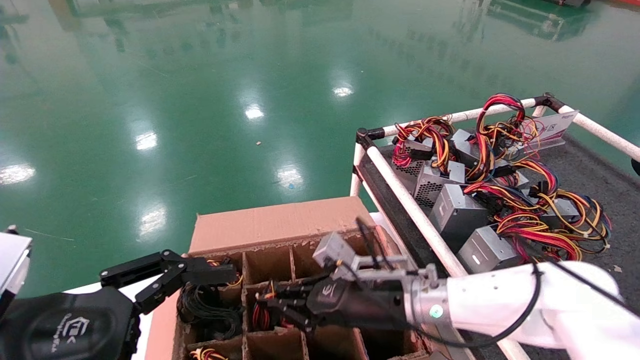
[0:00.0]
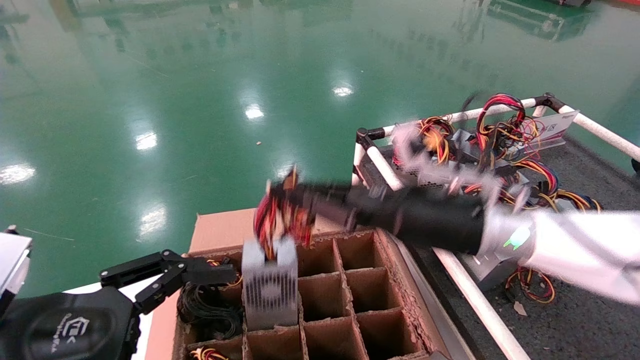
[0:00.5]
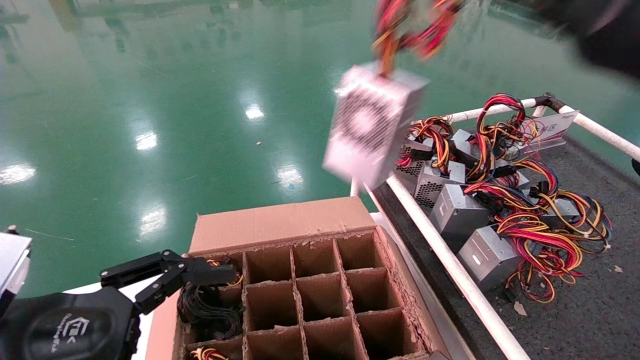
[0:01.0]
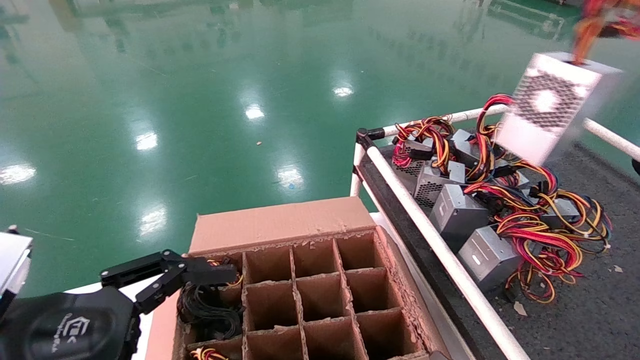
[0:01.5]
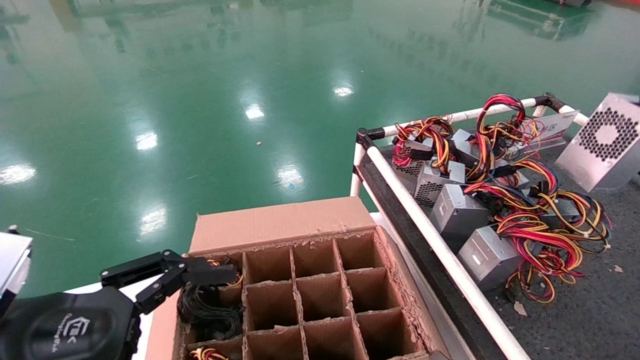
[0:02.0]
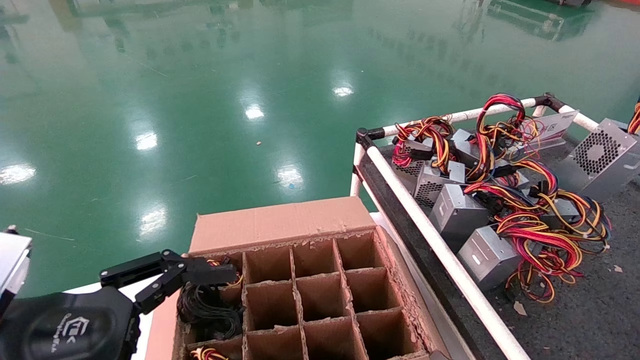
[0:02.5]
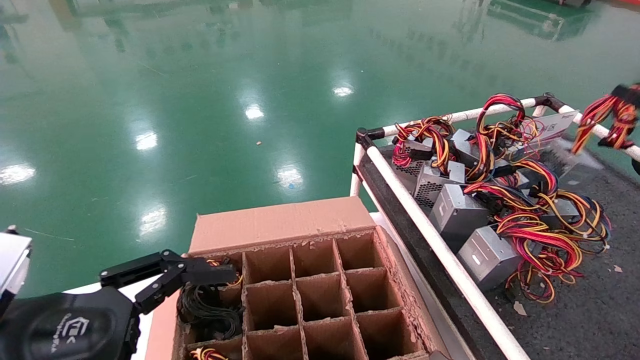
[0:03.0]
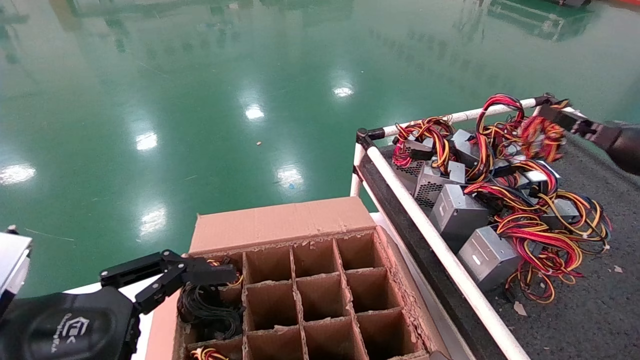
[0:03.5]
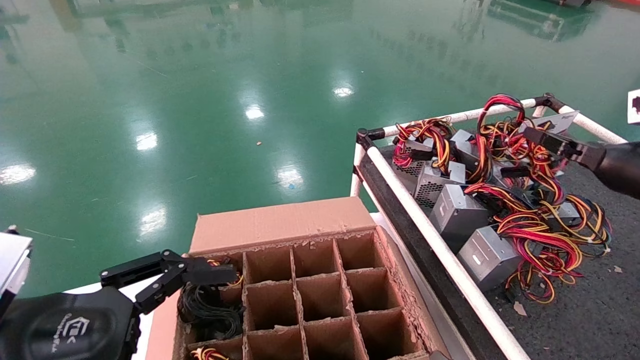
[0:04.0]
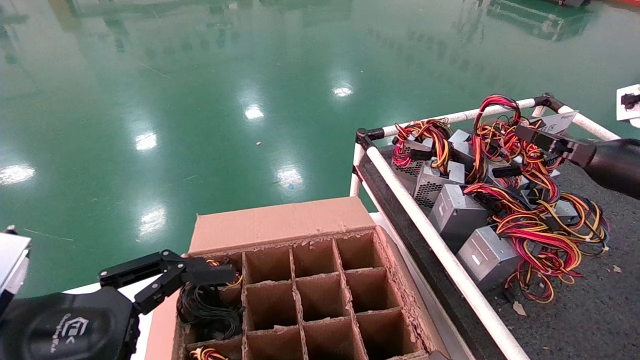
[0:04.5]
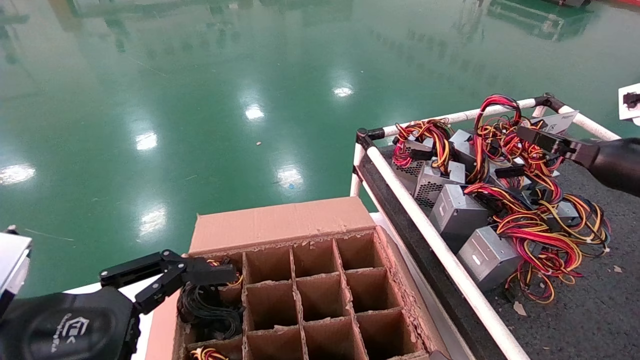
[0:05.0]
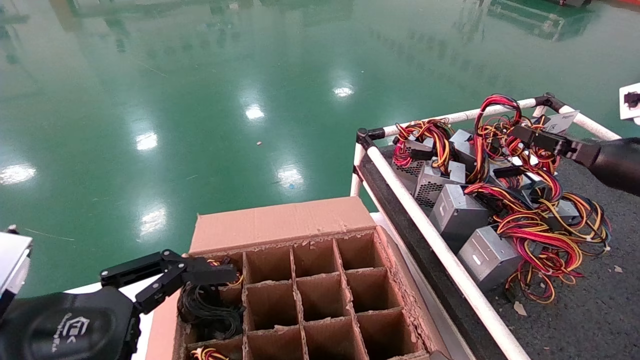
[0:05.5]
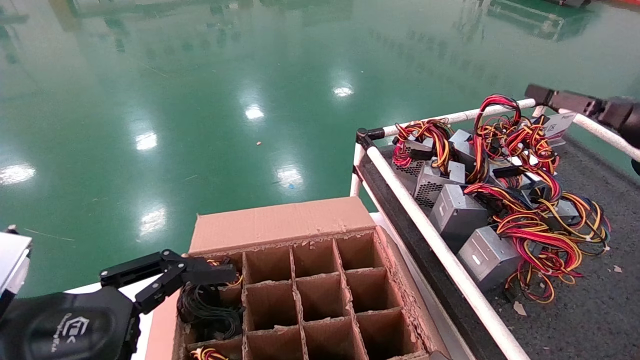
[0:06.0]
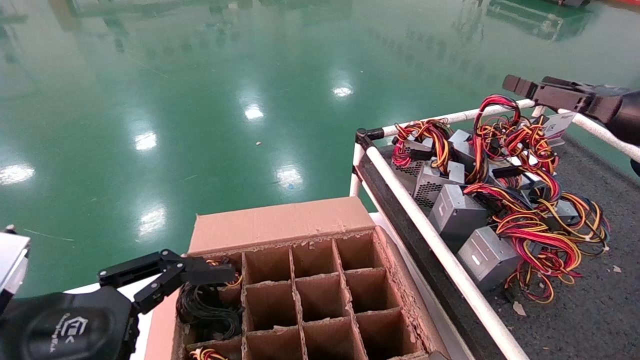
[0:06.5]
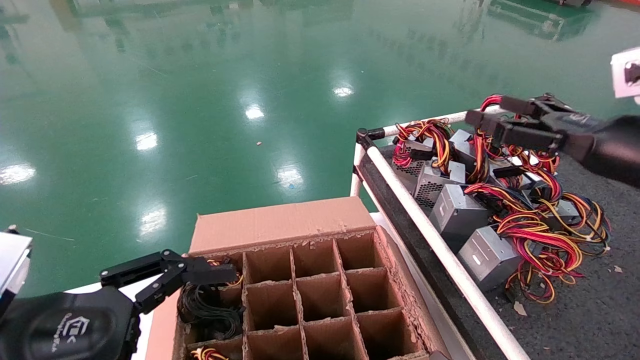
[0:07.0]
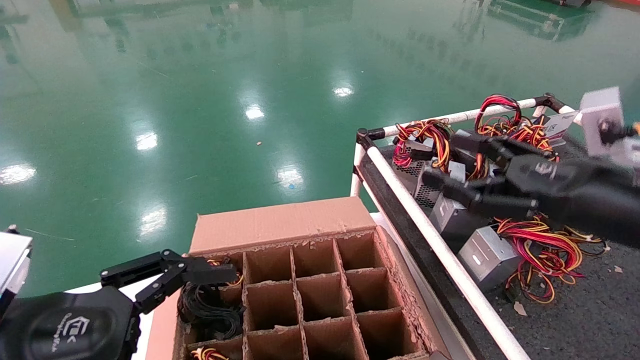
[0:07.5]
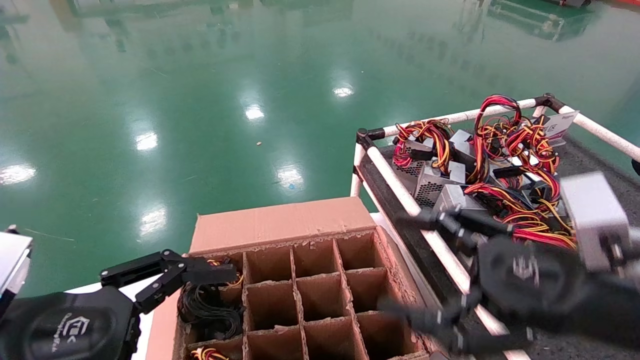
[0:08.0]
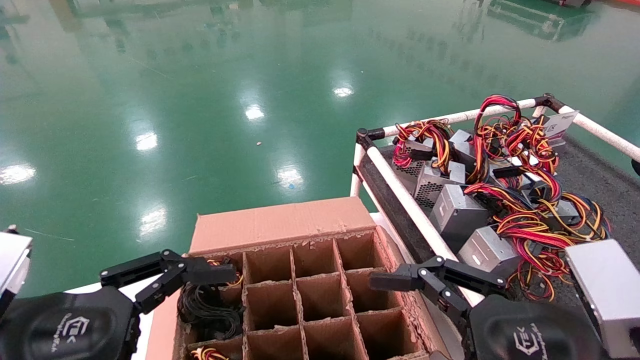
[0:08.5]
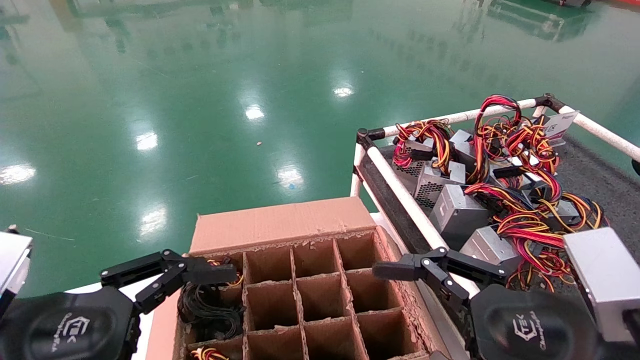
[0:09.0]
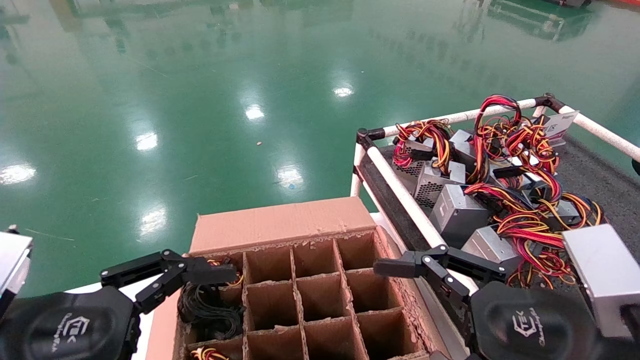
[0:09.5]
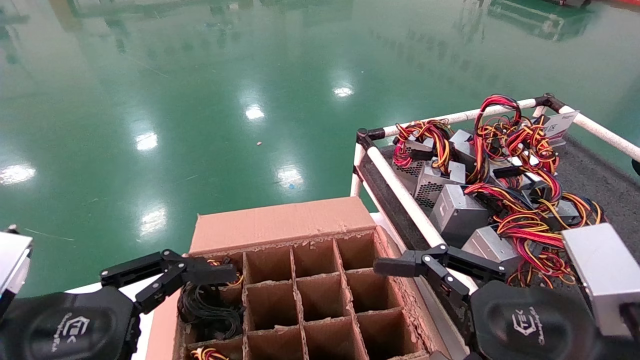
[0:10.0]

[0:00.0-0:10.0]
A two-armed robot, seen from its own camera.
Step, 0:00.0 to 0:05.5: Place the power supply on the operating table.
0:00.0 to 0:02.0: The right gripper is displaced to the right and upward by roughly 50 cm.
0:02.0 to 0:04.0: The right gripper moves forward, downward and to the left, approximately 20 cm.
0:04.0 to 0:06.0: The right gripper goes about 5 cm upward, and opens.
0:06.0 to 0:08.0: The right gripper moves to the left, backward and downward, some 25 cm, and opens.
0:08.0 to 0:10.0: The grippers move only a little.
